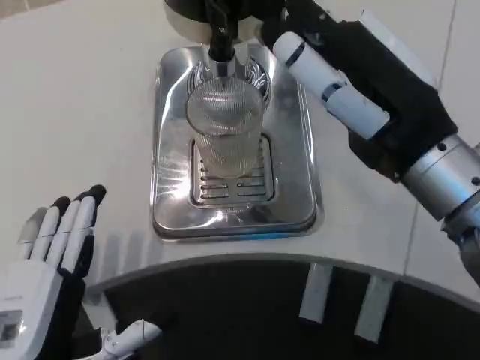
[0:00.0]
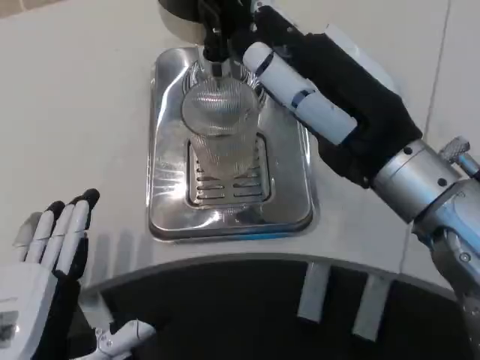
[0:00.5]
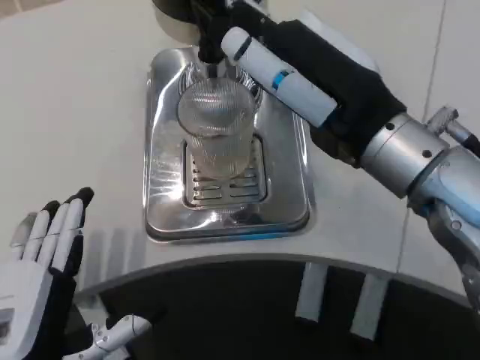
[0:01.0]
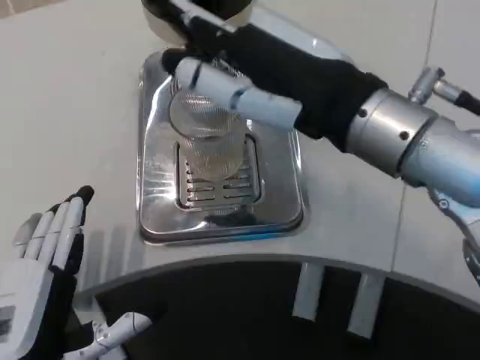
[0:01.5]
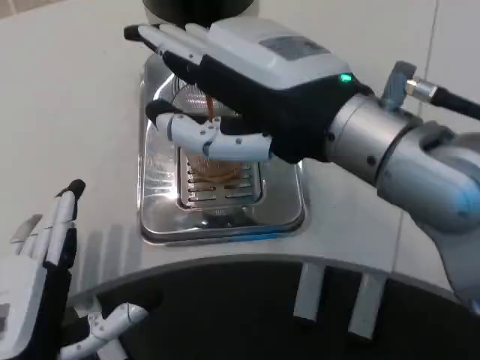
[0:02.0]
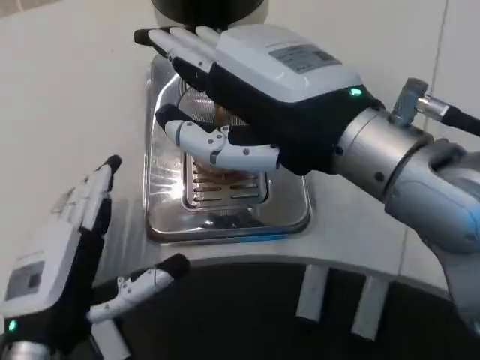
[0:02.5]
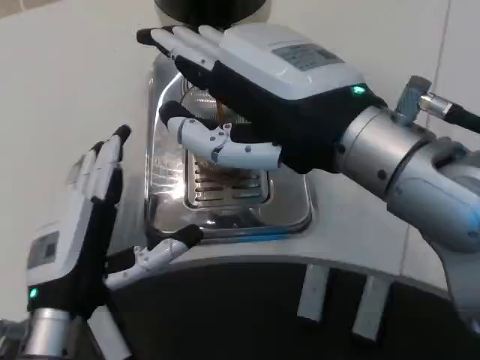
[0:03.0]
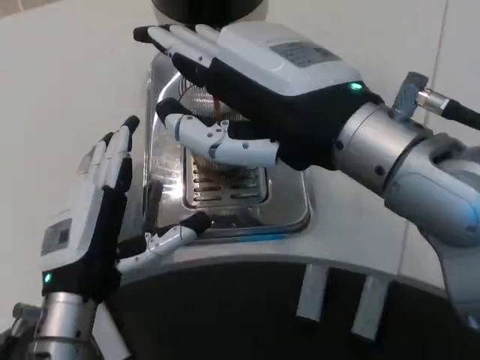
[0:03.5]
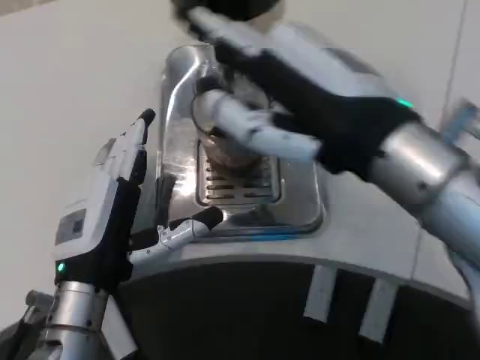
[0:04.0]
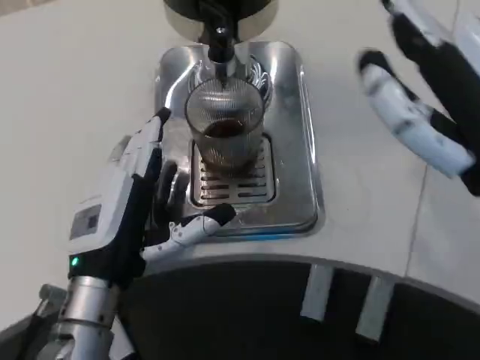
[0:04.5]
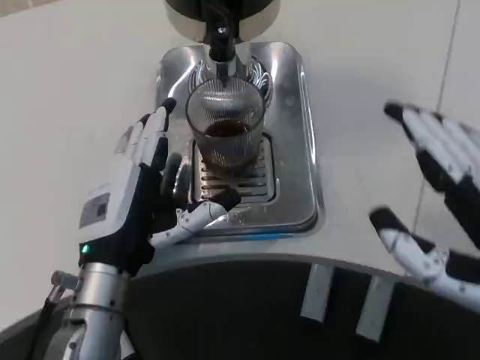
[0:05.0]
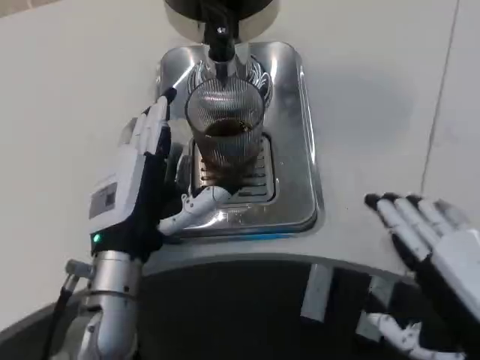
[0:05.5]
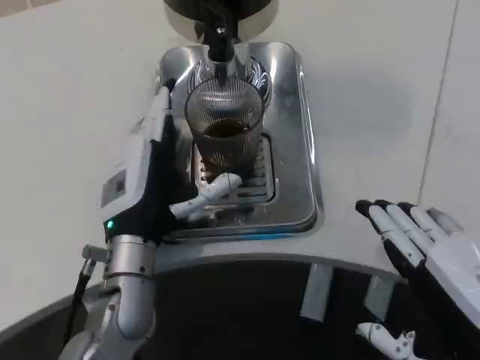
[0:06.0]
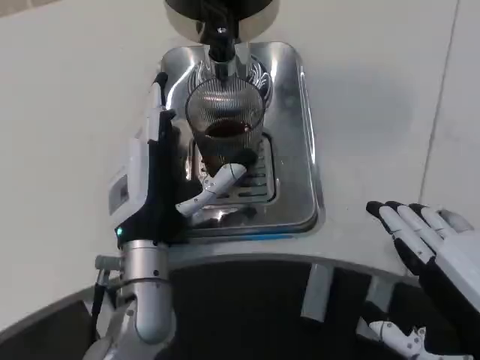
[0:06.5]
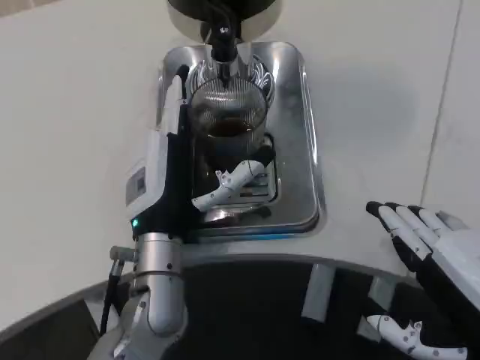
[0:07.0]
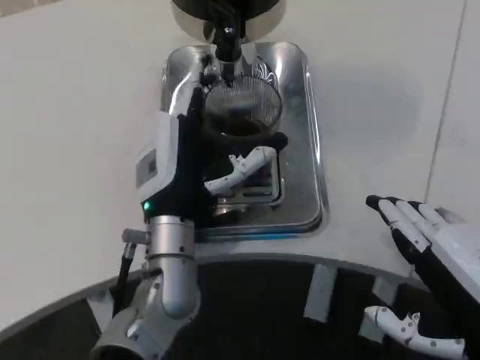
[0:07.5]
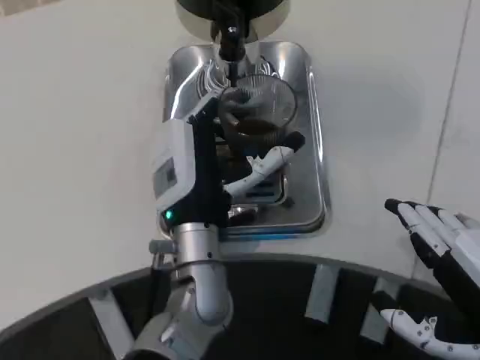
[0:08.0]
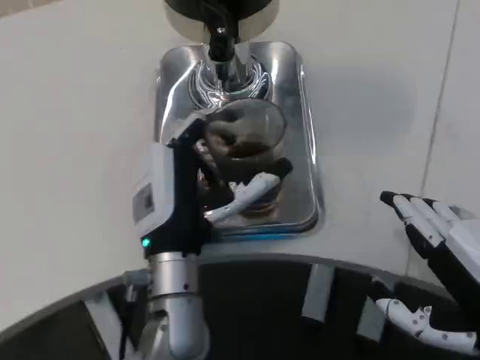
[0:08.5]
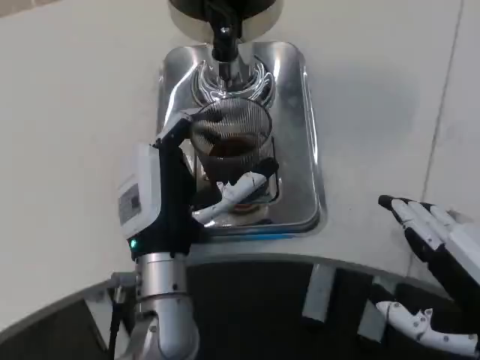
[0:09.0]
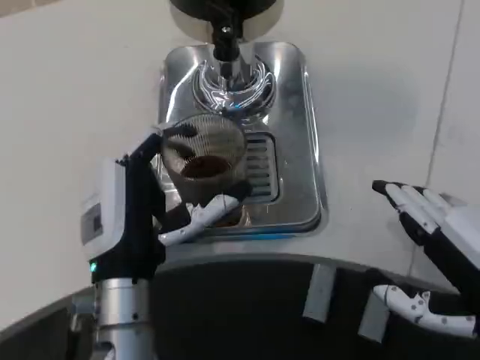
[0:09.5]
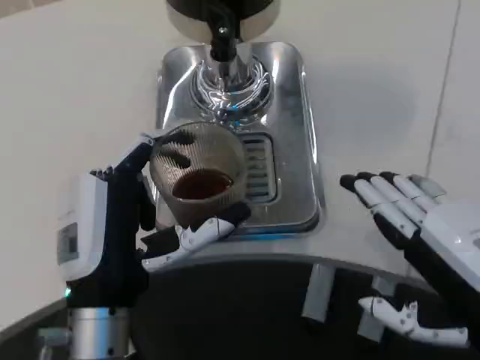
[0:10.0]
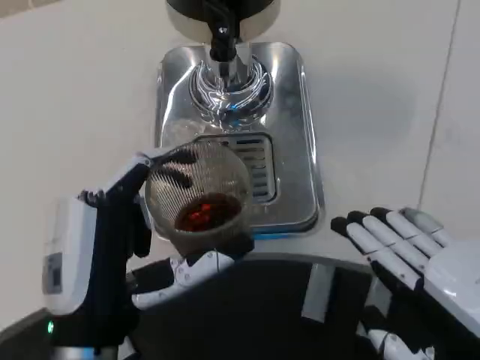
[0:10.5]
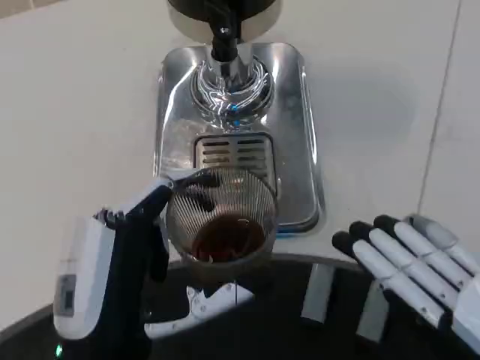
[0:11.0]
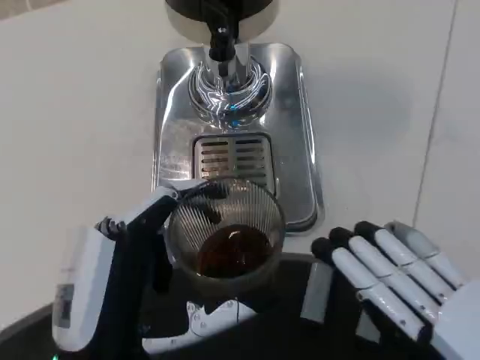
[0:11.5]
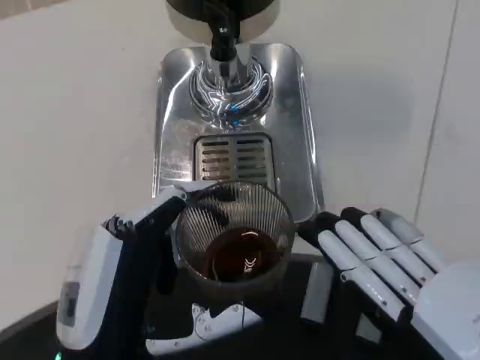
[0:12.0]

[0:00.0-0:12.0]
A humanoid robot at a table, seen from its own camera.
Task of the whole recording: Grasp the cup under the faucet to collect the drink, then remove the cup.
0:00.0 to 0:02.0: The right hand shifts some 10 cm to the left and upward.
0:02.0 to 0:04.0: The left hand goes approximately 10 cm forward.
0:04.0 to 0:06.0: The left hand heads forward, covering approximately 5 cm. The right hand travels downward, backward and to the right by some 15 cm.
0:06.0 to 0:08.0: The left hand moves to the right, roughly 10 cm.
0:08.0 to 0:10.0: The left hand goes some 15 cm backward and to the left.
0:10.0 to 0:12.0: The hands both shift backward by approximately 5 cm.

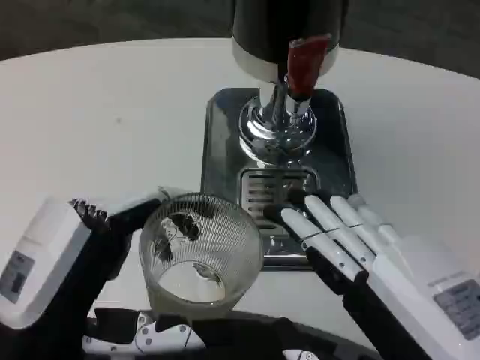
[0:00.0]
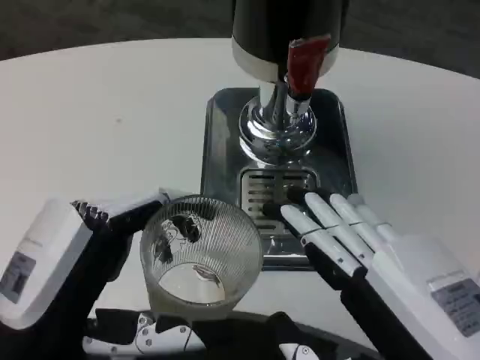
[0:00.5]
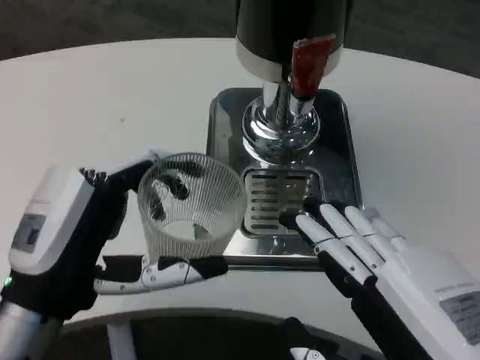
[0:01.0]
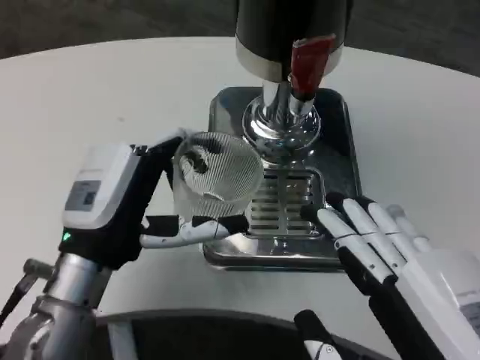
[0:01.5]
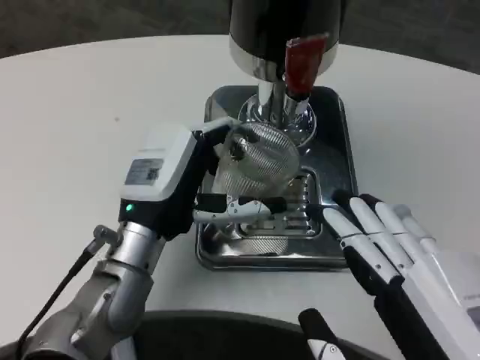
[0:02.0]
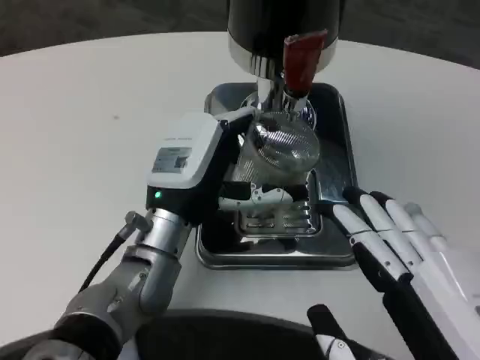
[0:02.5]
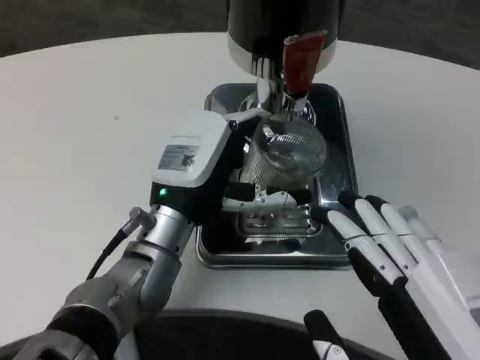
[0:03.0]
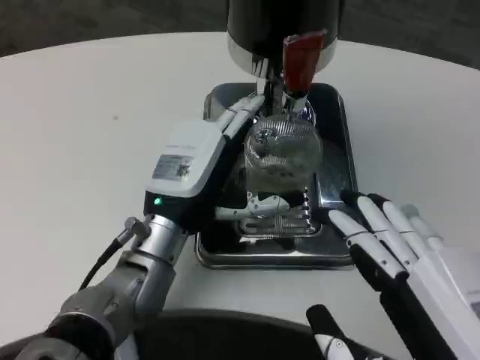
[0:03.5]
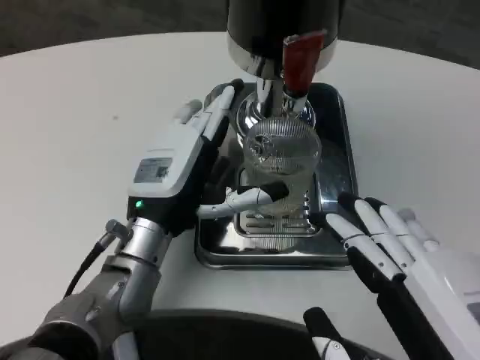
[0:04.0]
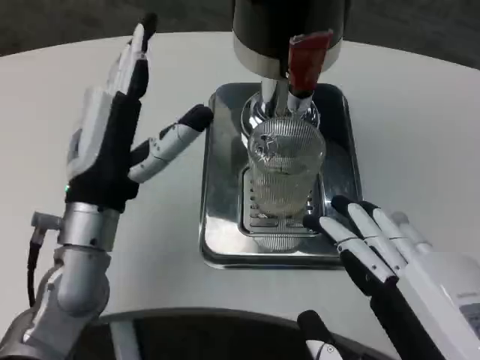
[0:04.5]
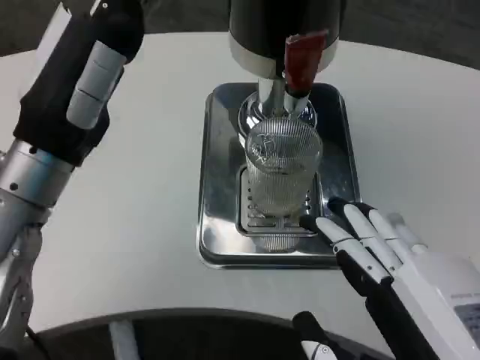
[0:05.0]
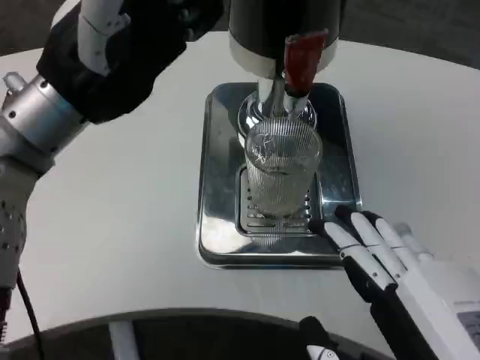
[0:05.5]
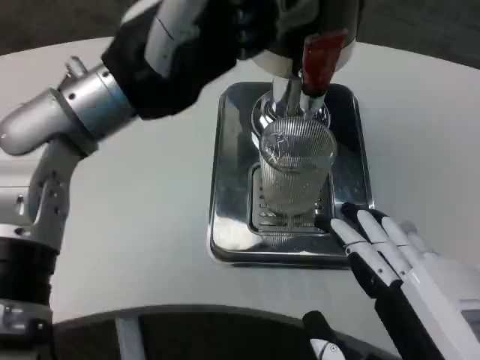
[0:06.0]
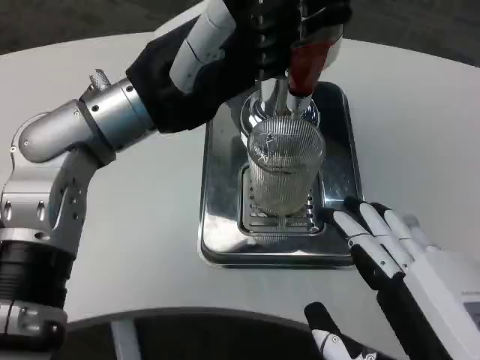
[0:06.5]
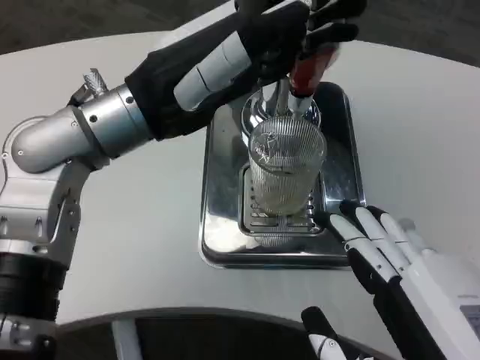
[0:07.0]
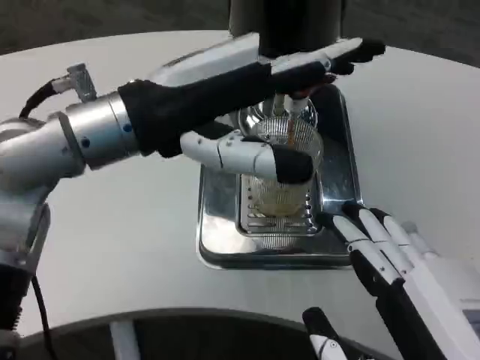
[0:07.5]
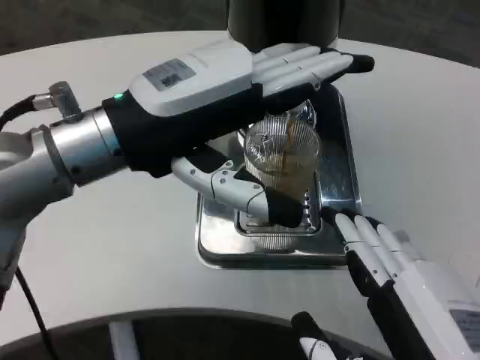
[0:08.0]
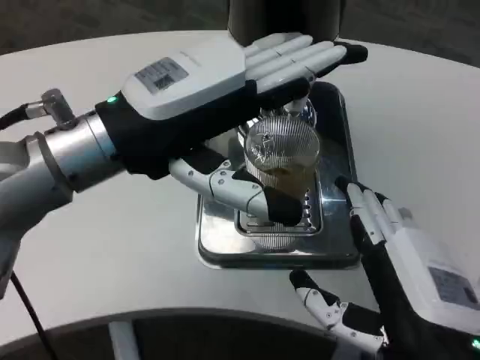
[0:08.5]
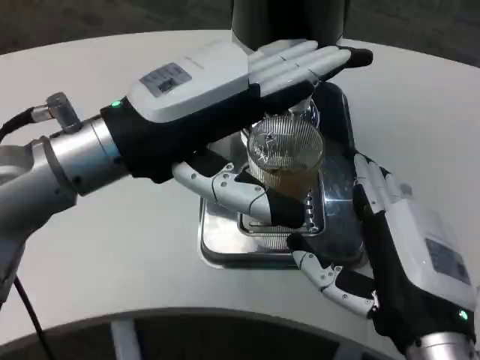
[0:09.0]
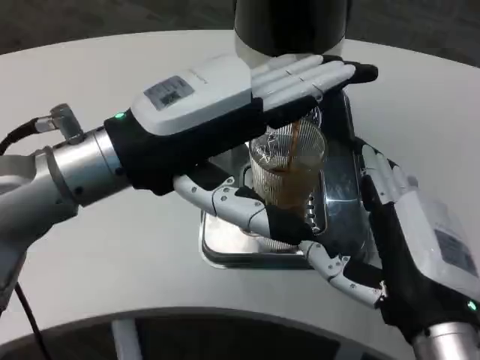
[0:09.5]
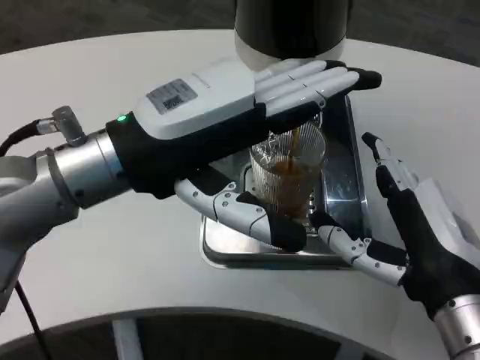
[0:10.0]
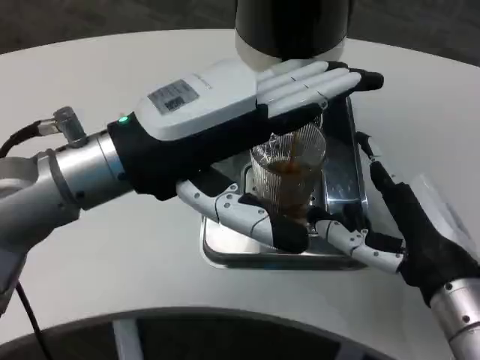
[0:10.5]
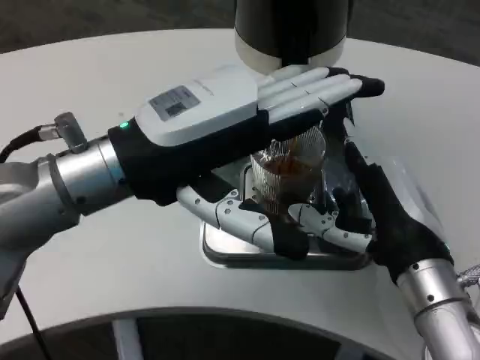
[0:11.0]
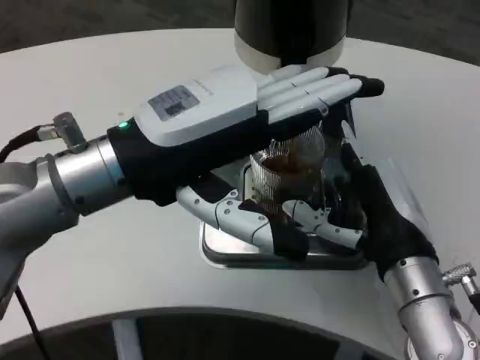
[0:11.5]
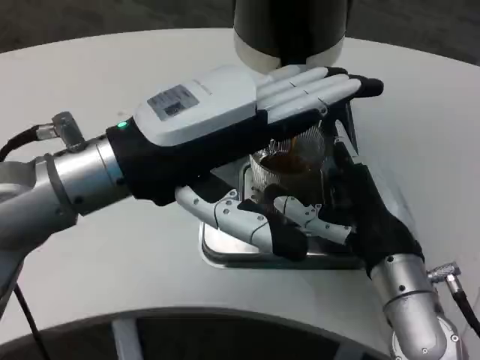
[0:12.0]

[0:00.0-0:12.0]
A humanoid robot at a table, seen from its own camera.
Task of the whole recording: Grasp the cup under the faucet to collect the drink, then remove the cup.
0:00.0 to 0:02.0: The left hand travels forward and to the right by some 15 cm.
0:04.0 to 0:06.0: The left hand goes approximately 15 cm upward.
0:08.0 to 0:10.0: The right hand moves forward, about 10 cm.
0:10.0 to 0:12.0: The right hand goes some 5 cm forward.

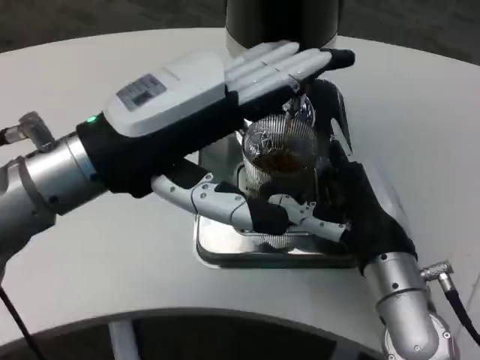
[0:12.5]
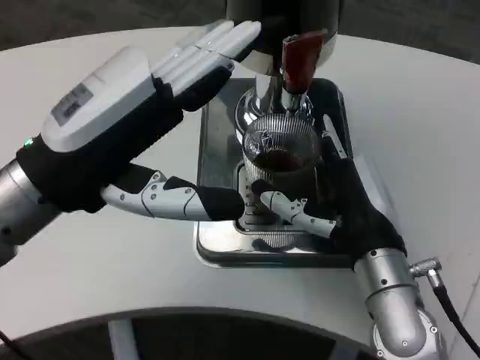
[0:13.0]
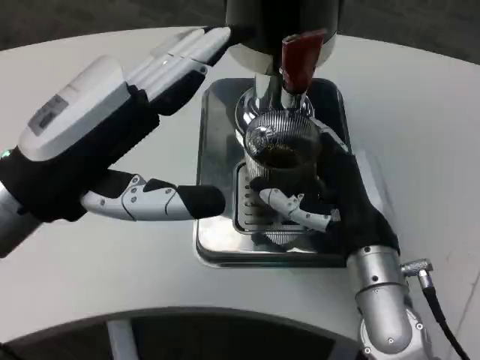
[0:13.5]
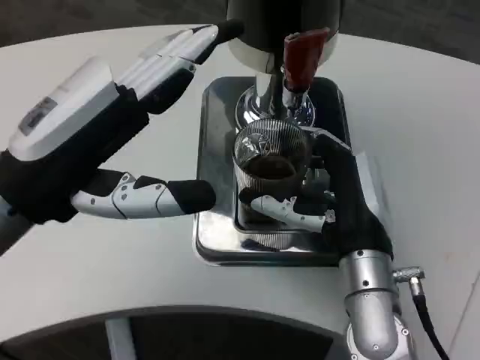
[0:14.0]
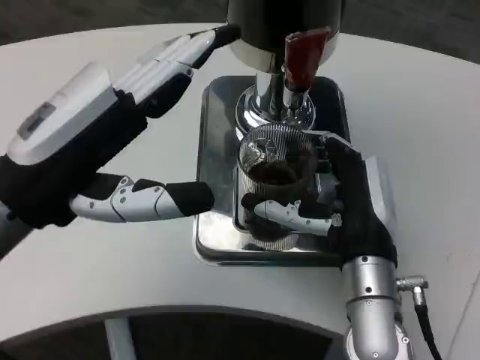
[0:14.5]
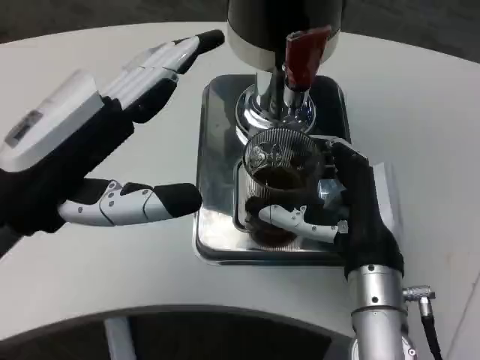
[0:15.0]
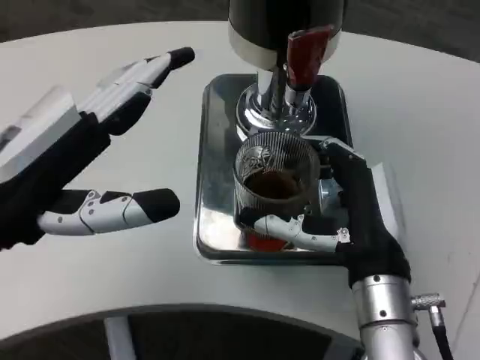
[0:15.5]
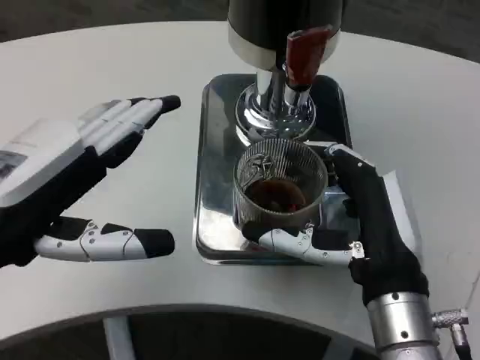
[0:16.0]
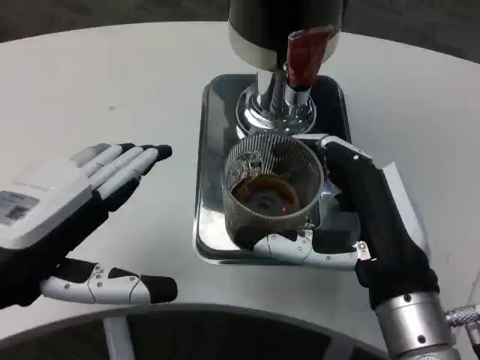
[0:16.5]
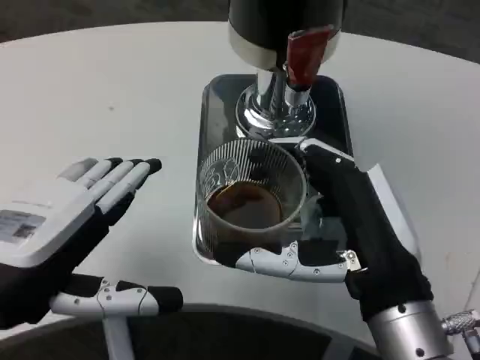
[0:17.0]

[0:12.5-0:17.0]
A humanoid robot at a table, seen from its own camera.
Task of the whole recording: Grasp the cup under the faucet to collect the drink, then remove the cup.
0:12.5 to 0:14.5: The left hand shifts by roughly 5 cm.
0:14.5 to 0:17.0: The two hands go some 5 cm backward.
